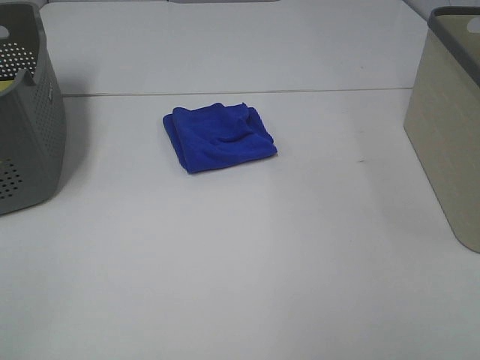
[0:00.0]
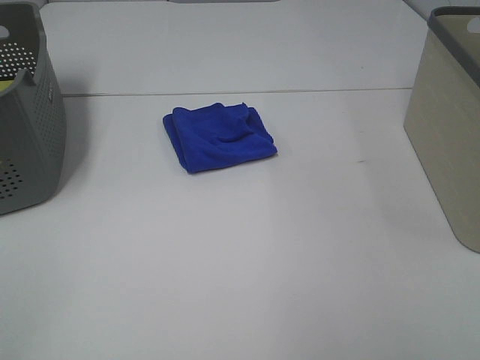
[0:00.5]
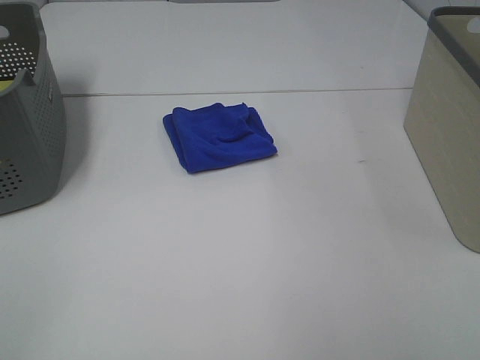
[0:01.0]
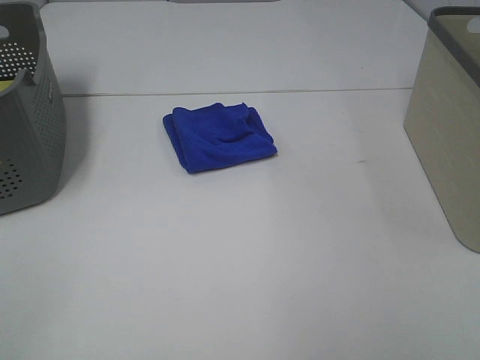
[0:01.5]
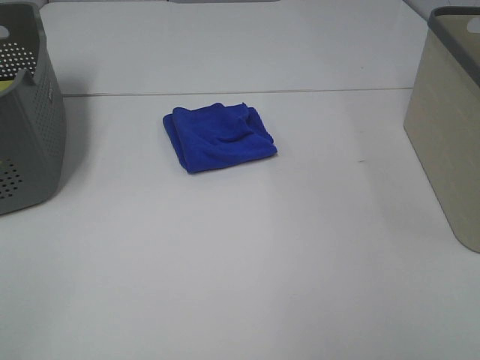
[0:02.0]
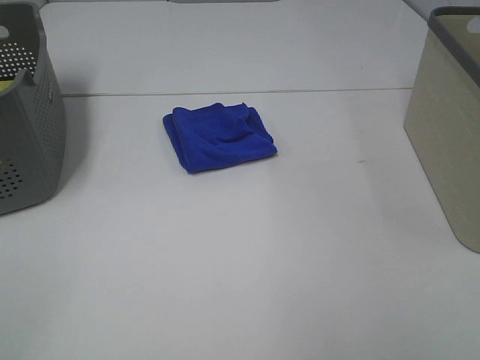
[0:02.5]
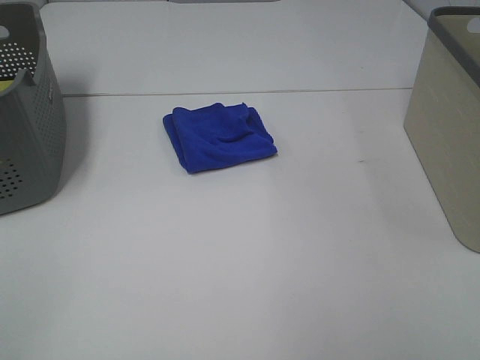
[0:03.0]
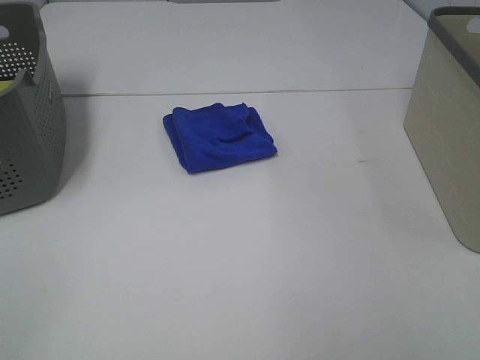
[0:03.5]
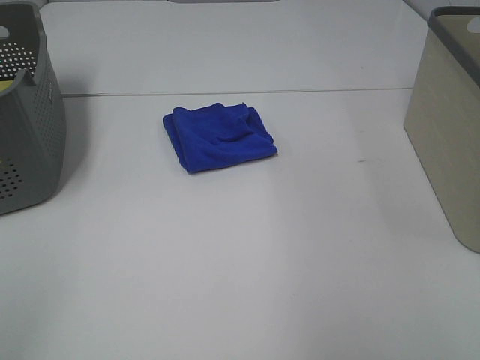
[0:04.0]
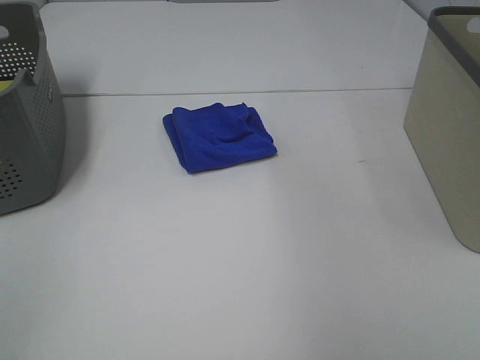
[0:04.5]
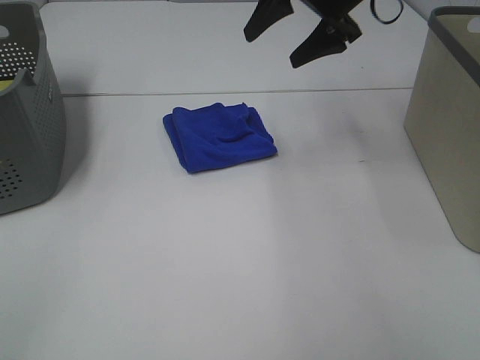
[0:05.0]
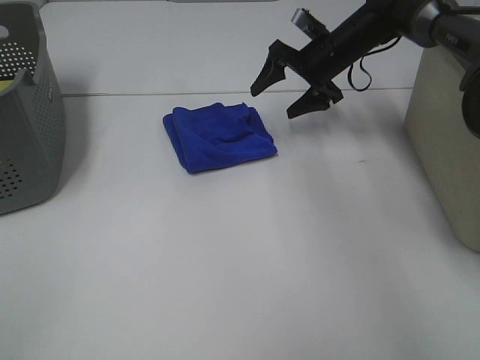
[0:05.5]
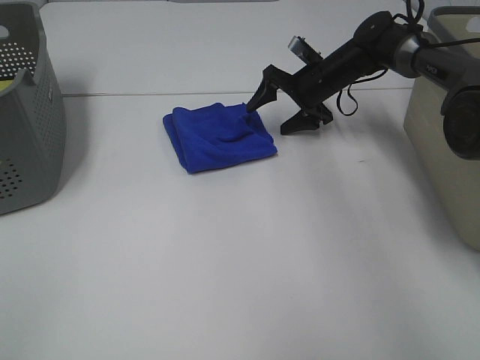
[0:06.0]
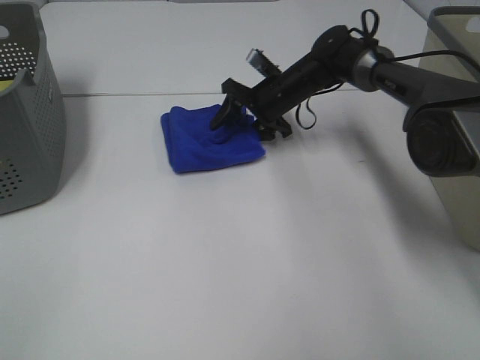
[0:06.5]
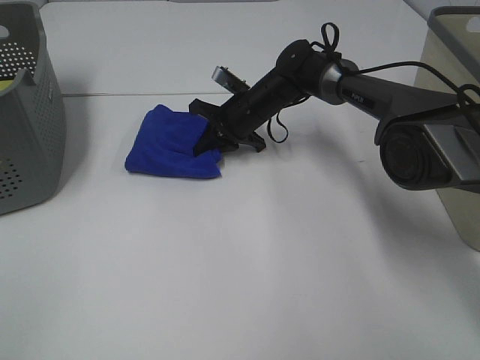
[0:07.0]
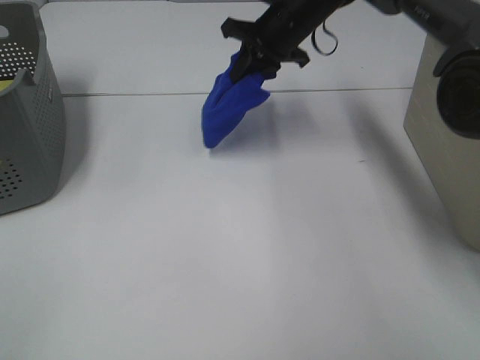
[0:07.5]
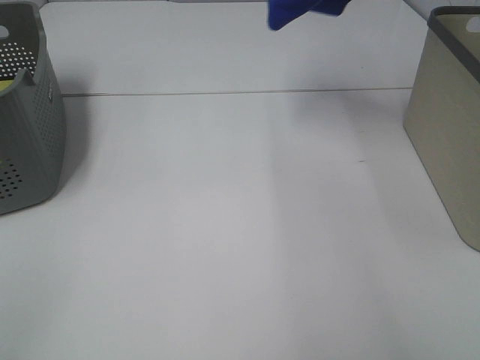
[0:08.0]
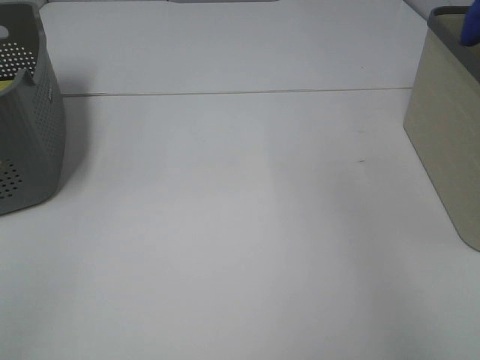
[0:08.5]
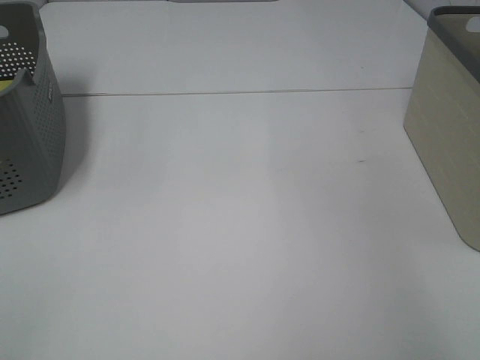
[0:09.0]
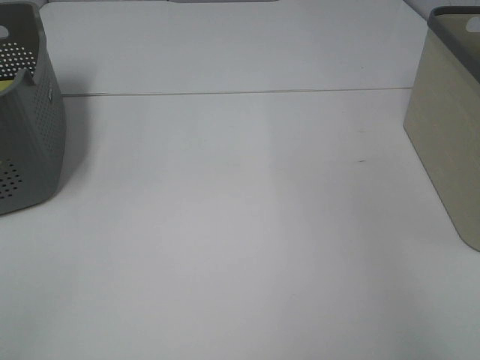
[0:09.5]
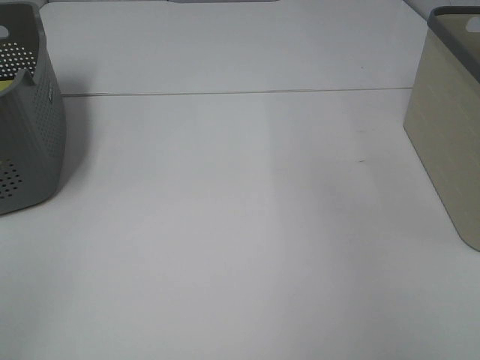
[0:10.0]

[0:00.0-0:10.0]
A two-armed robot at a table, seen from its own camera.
Step, 0:00.0 to 0:06.5: Right hand: grab the folded blue towel.
Step, 0:07.0 to 0:09.0: Right hand: place the blue towel in right basket.
0:00.0 to 0:02.0: The two grippers keep their place.
0:04.0 to 0:06.0: The right gripper goes some 50 cm forward and downward.
0:06.0 to 0:08.0: The right gripper is displaced upward by some 30 cm, and closes up.
0:08.0 to 0:10.0: The right gripper is displaced to the right and backward by about 25 cm, and opens up.

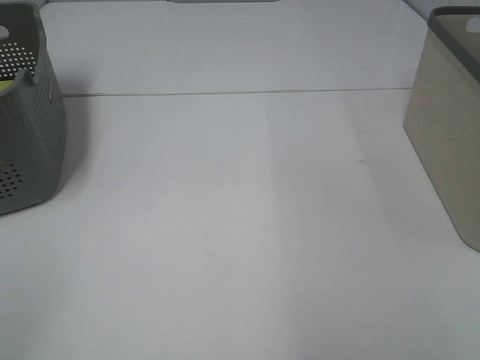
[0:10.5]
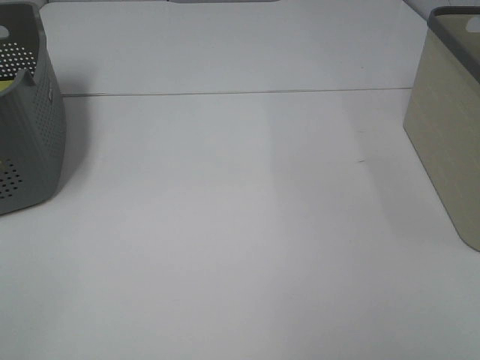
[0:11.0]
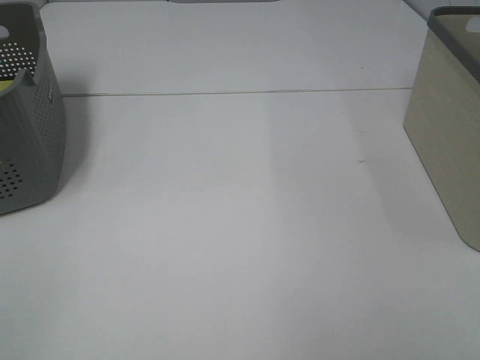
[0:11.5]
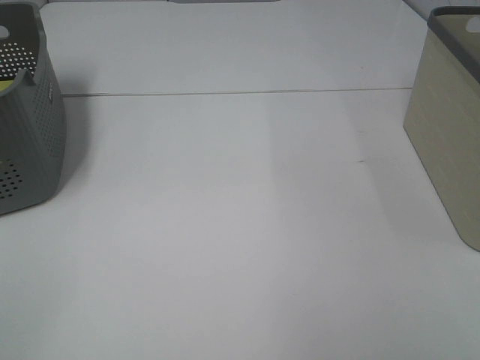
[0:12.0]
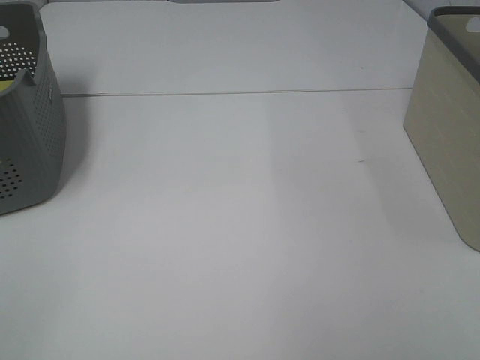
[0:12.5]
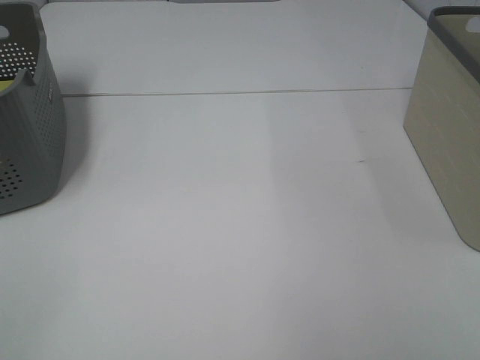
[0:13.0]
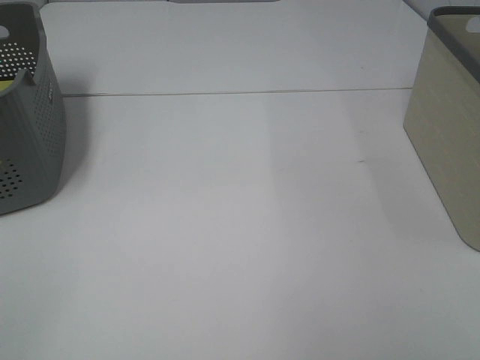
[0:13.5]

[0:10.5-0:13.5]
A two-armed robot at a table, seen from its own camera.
0:12.0 to 0:13.5: Neither gripper changes place.

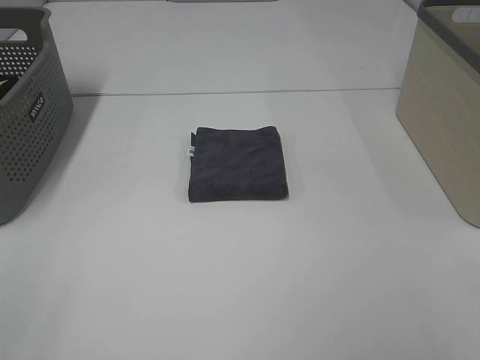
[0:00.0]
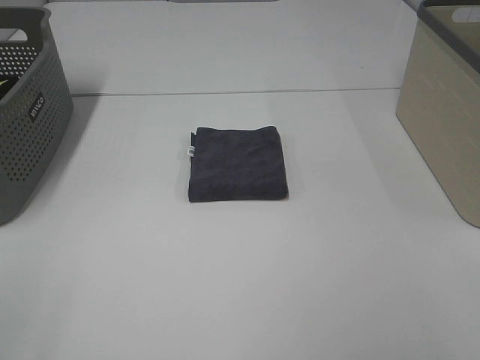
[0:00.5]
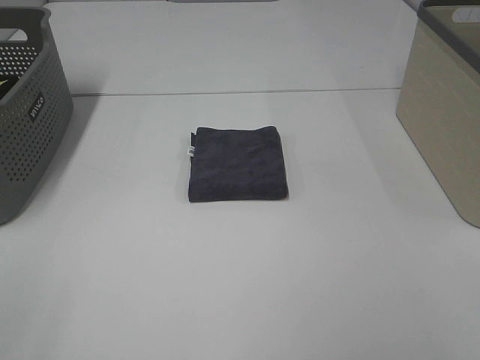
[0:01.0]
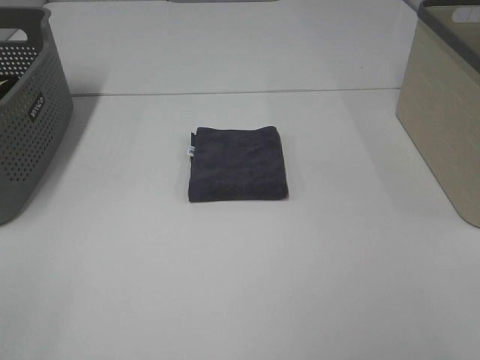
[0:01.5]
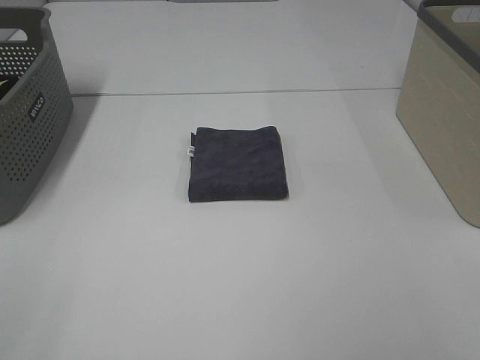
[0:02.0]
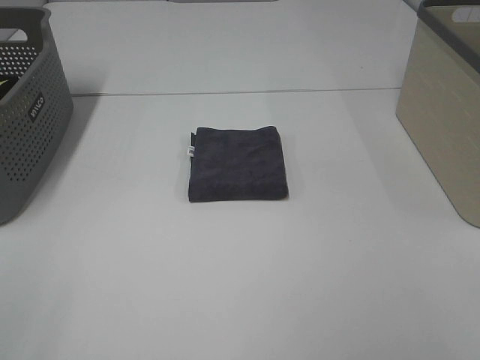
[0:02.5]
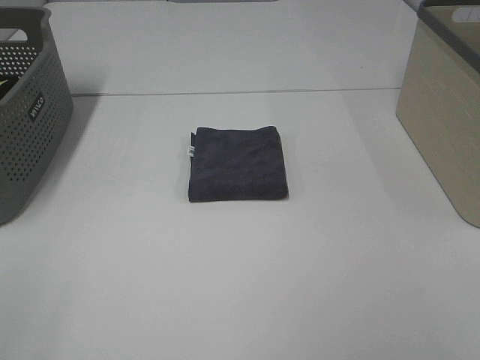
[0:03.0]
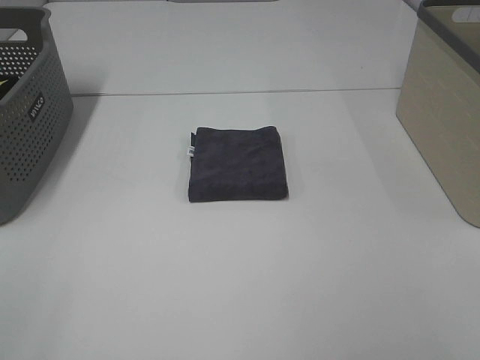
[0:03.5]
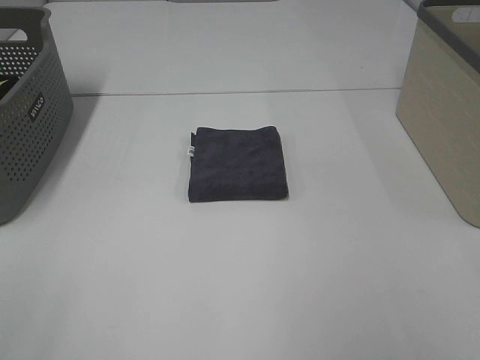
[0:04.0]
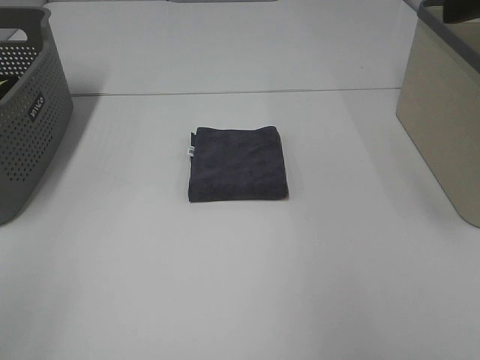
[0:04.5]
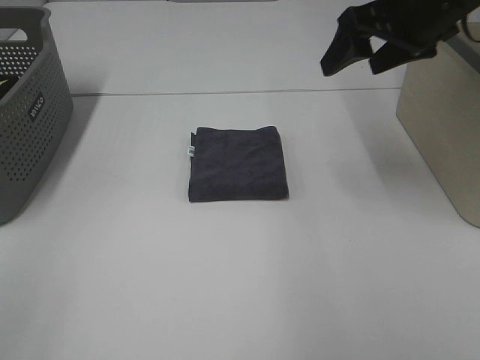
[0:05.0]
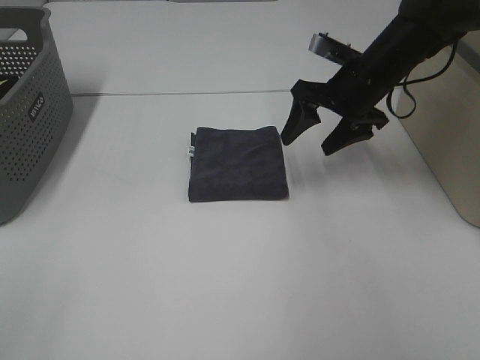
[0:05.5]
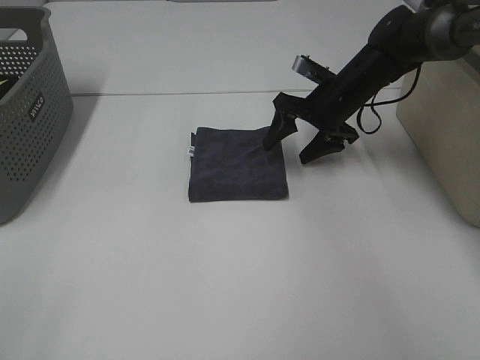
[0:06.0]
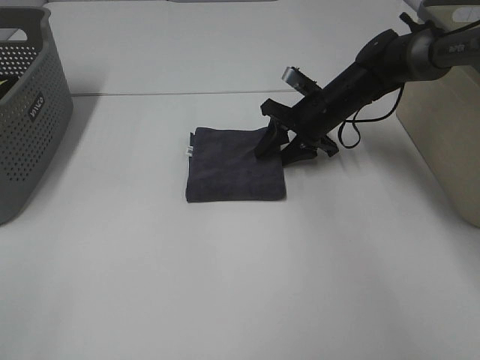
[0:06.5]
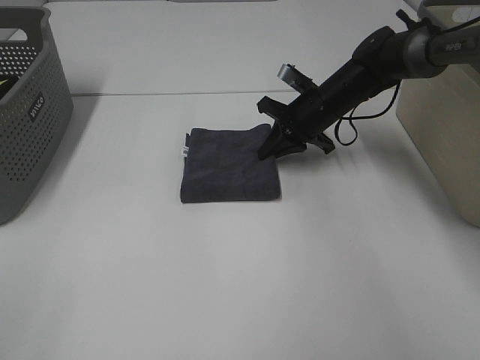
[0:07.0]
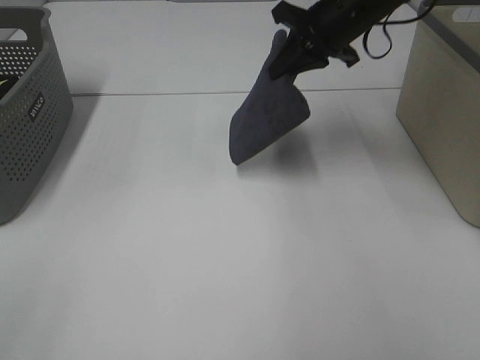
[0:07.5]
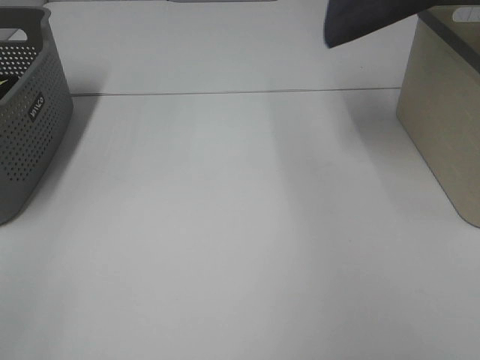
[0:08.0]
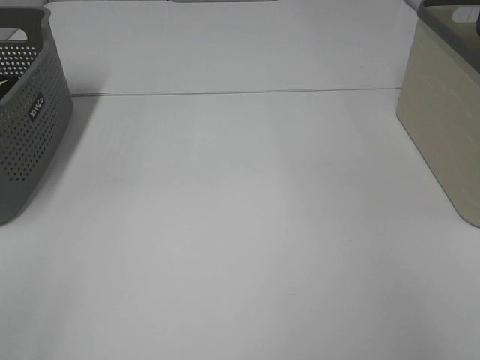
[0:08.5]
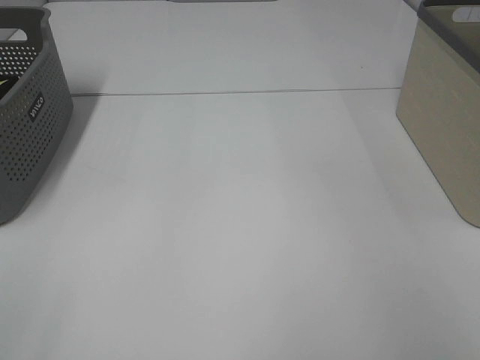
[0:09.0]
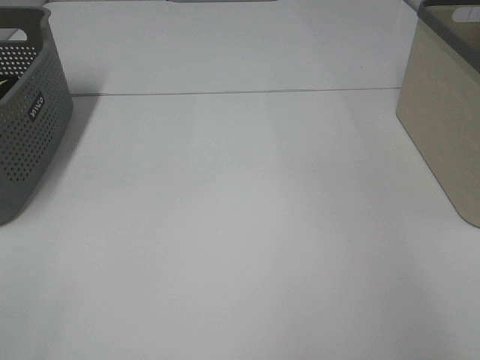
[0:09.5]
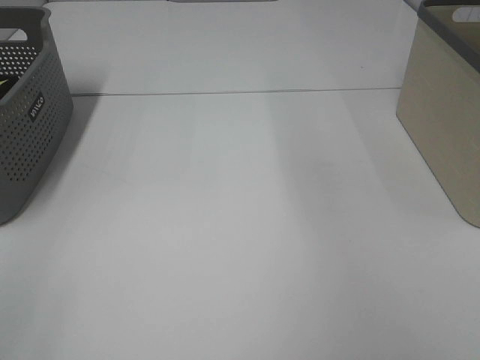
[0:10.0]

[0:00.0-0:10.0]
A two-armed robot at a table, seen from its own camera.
Step, 0:00.0 to 0:06.5: Right hand: grab the folded grey towel.
Step, 0:07.0 to 0:09.5: Right hand: place the grey towel in right basket.
0:00.0 to 0:02.0: Both grippers stay about where they are.
0:04.0 to 0:06.0: The right gripper heads forward and downward, covering some 40 cm.
0:06.0 to 0:08.0: The right gripper shifts approximately 30 cm upward, and closes its fingers.
0:08.0 to 0:10.0: The right gripper moves approximately 15 cm to the right and comes back, and opens up.

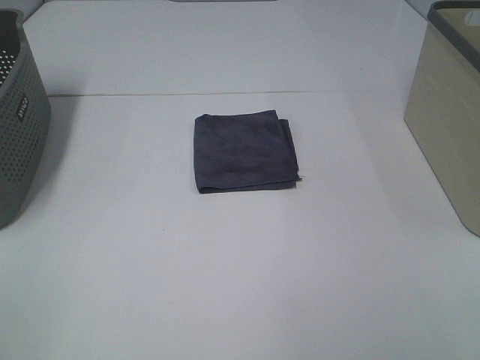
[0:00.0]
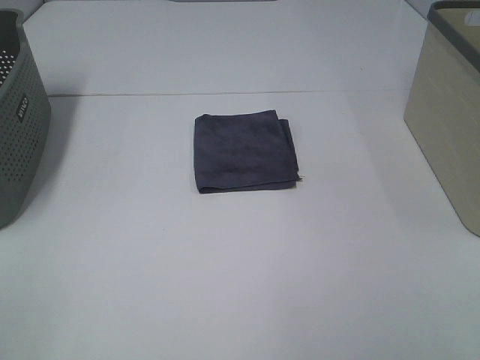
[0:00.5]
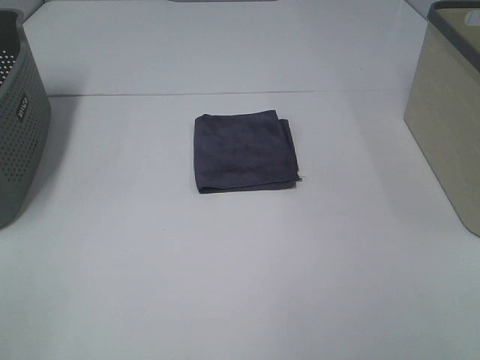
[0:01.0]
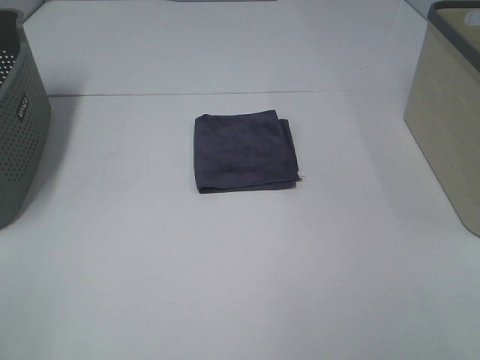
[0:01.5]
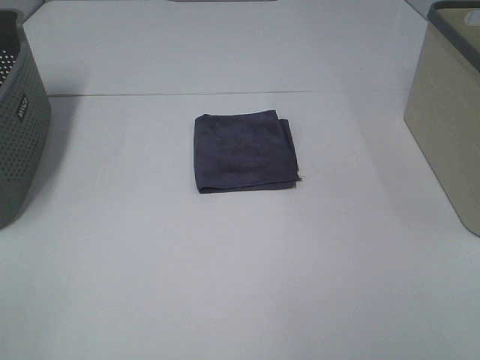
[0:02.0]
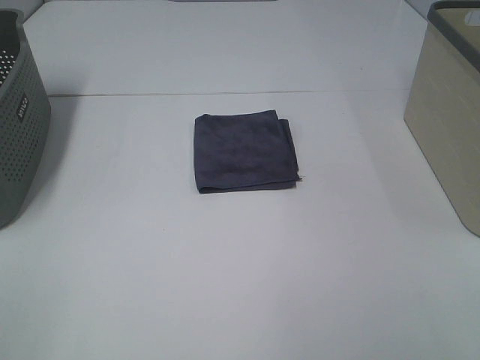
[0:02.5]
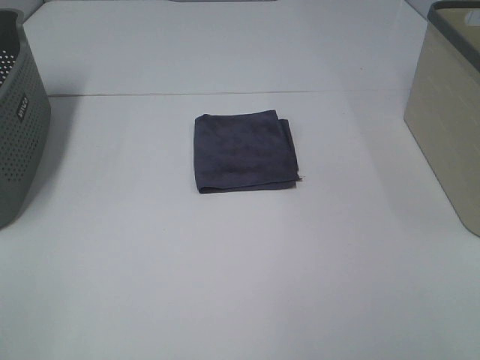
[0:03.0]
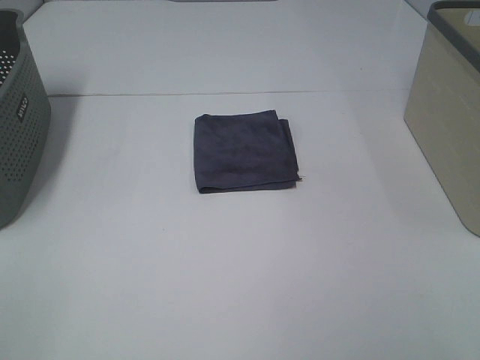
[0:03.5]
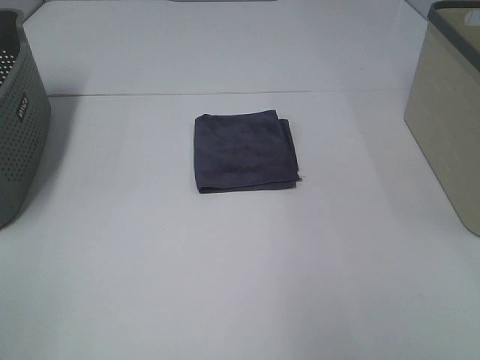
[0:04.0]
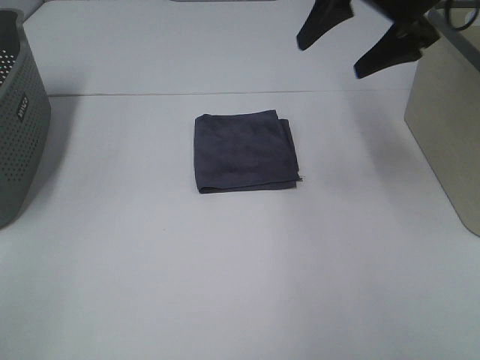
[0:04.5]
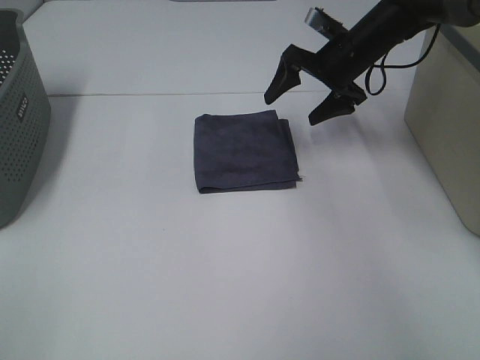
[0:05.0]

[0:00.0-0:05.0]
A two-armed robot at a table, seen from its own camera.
0:00.0 to 0:02.5: Both grippers stay put.
0:02.5 to 0:05.0: The right gripper heads forward, covering about 50 cm.
